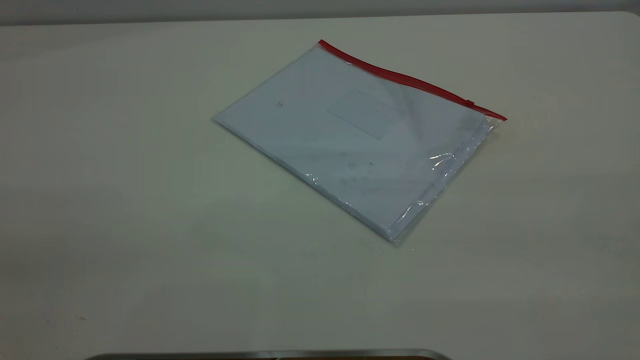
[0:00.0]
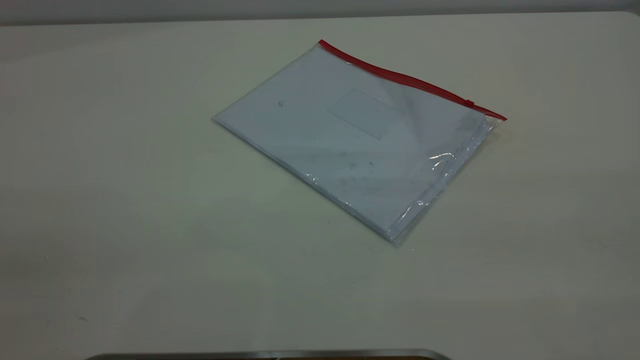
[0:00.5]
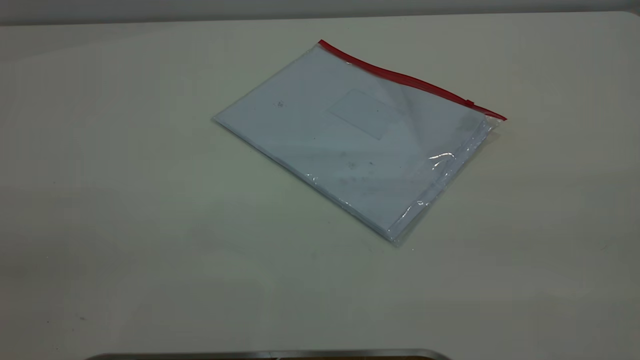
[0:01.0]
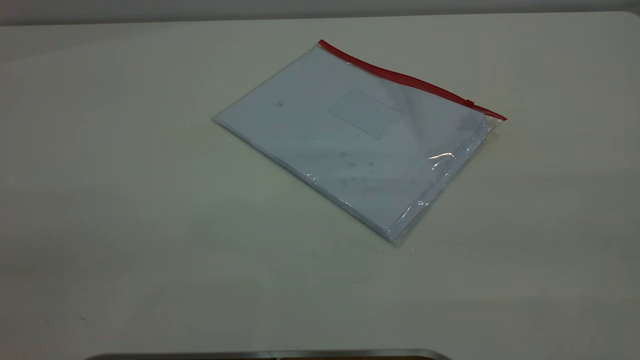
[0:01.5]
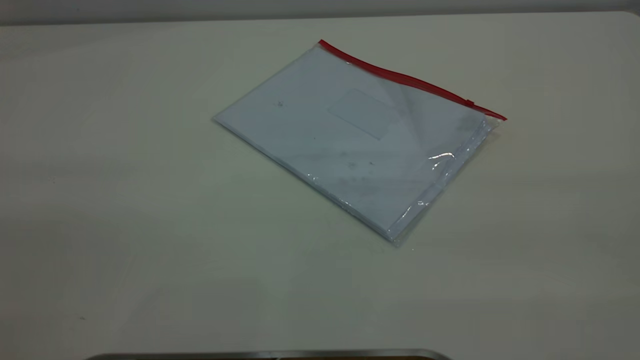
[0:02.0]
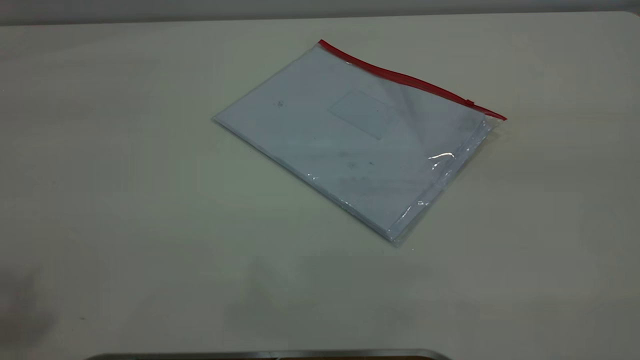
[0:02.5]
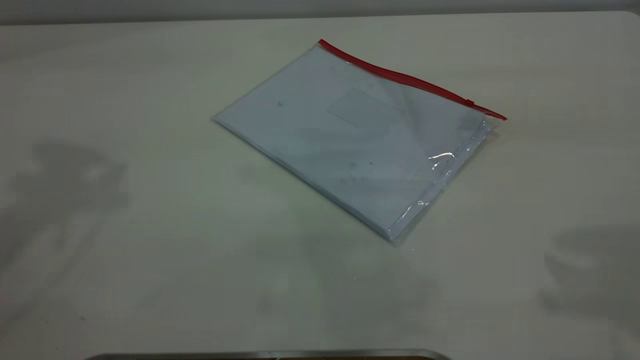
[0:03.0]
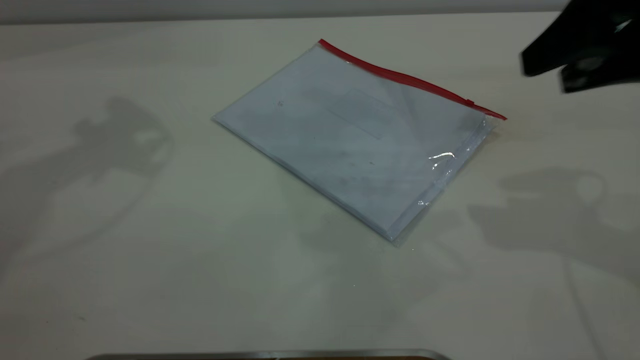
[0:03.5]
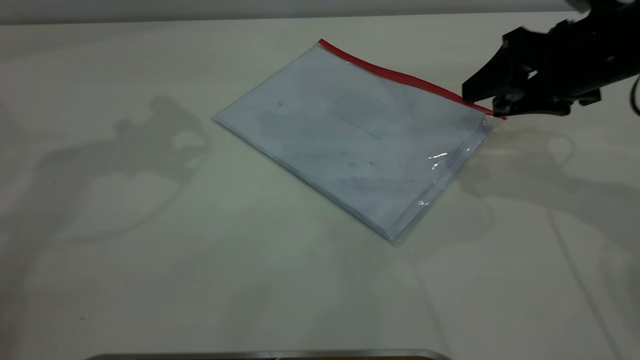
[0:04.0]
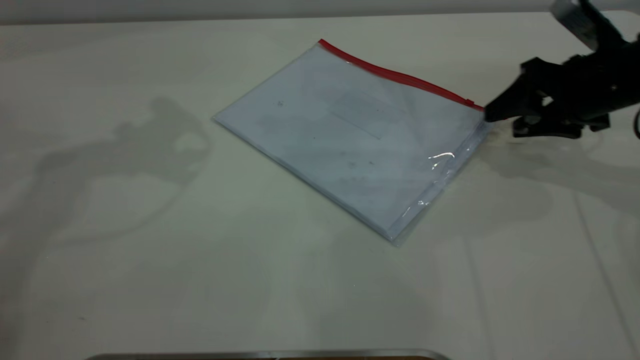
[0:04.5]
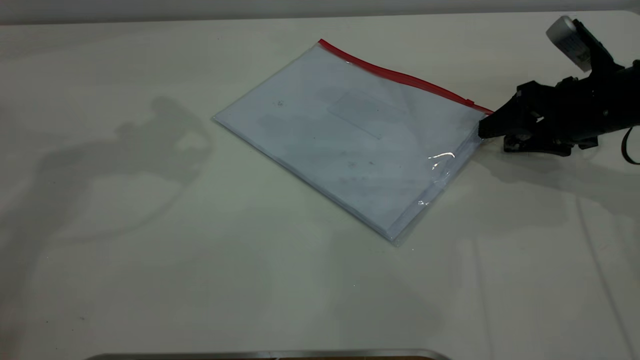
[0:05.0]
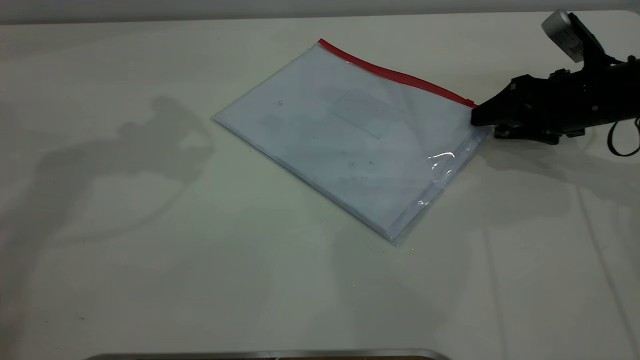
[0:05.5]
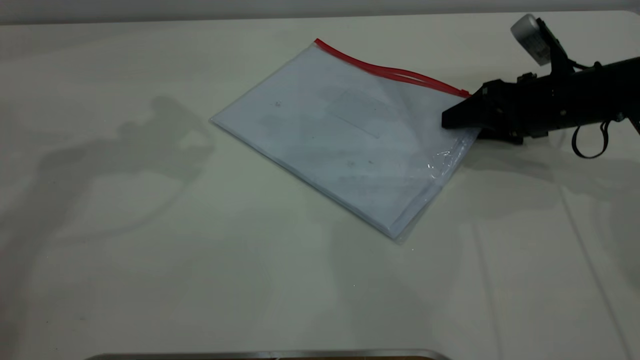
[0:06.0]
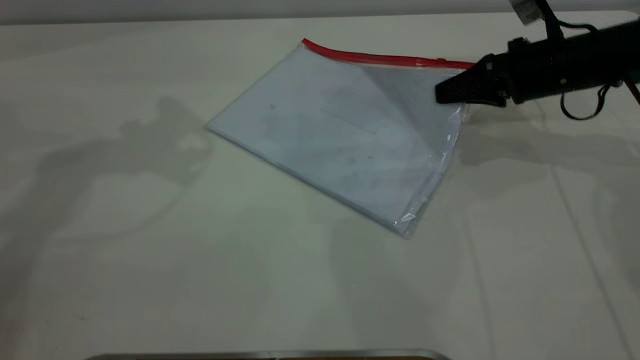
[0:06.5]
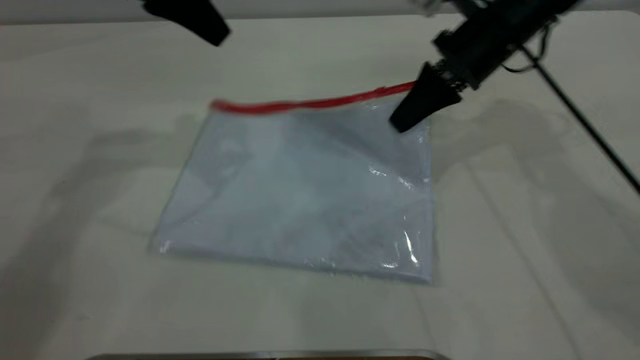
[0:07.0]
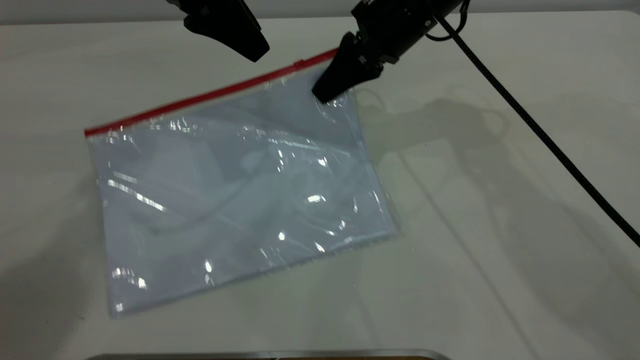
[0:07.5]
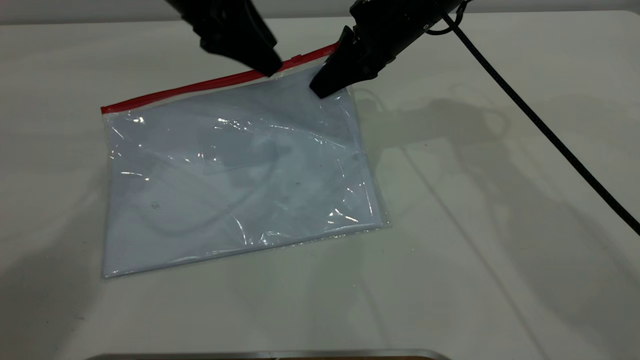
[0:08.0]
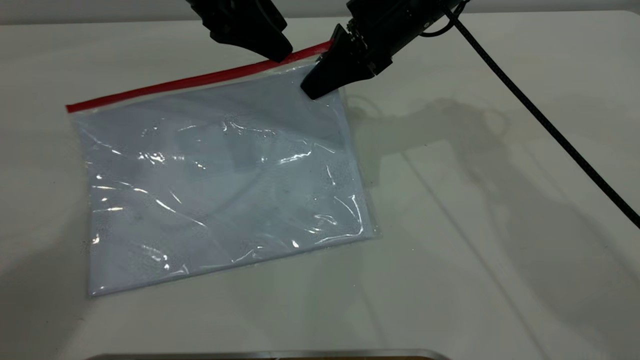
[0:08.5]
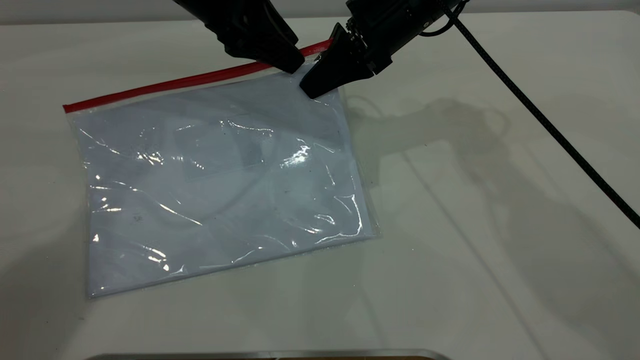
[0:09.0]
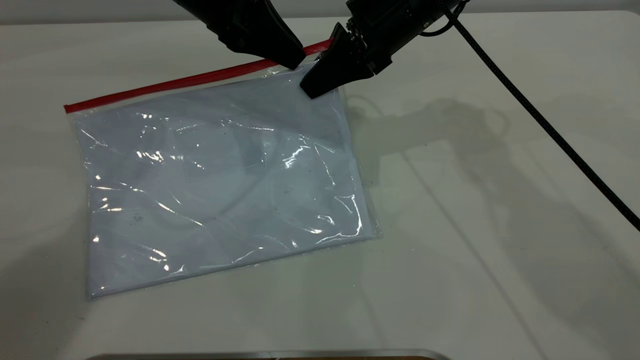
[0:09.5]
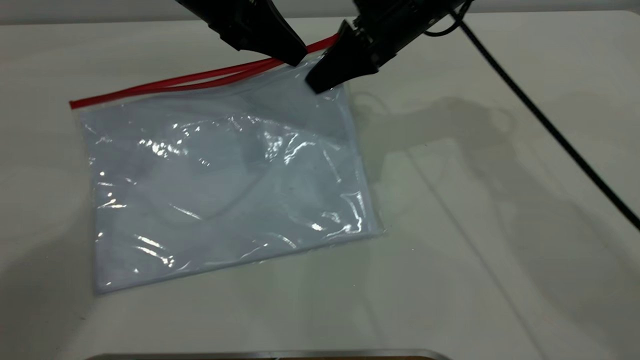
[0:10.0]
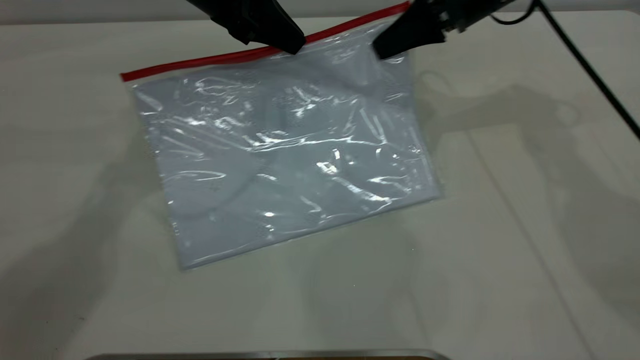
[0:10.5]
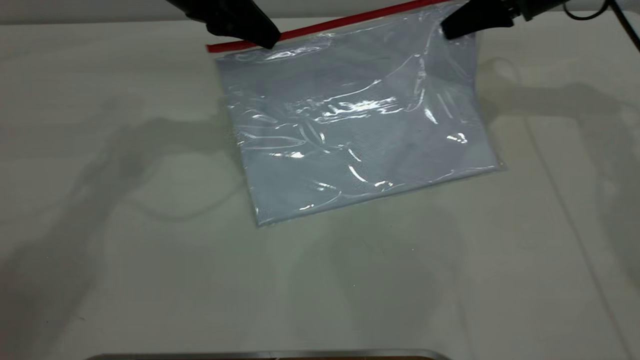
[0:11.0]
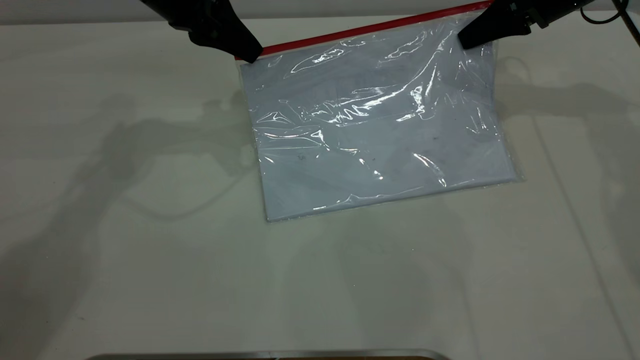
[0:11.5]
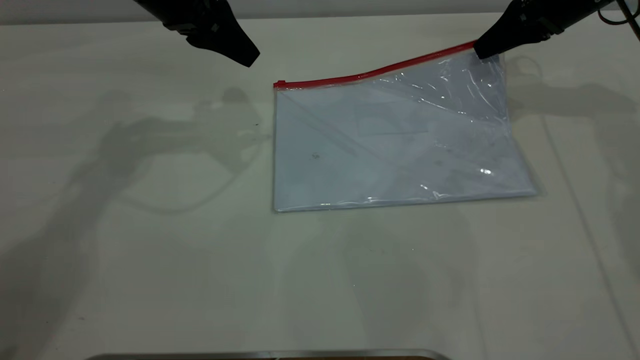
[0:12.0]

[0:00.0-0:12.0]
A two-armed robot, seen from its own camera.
Step, 0:00.0 to 0:07.0: Pick up the transparent plastic bag with the right gripper.
Step, 0:07.5 to 0:11.5: Pulling up the zipper on the transparent plastic bag with the left gripper to close it.
0:02.0 to 0:04.0: The right gripper is displaced forward and downward by approximately 40 cm, and opens.
0:04.0 to 0:06.0: The right gripper is displaced downward by approximately 10 cm.
0:06.0 to 0:08.0: The right gripper moves to the left and upward, about 20 cm, and closes, while the left gripper heads downward and to the right, covering roughly 10 cm.
0:08.0 to 0:10.0: The left gripper closes.
0:10.0 to 0:12.0: The left gripper opens. The right gripper heads to the right, covering some 20 cm, and opens up.
